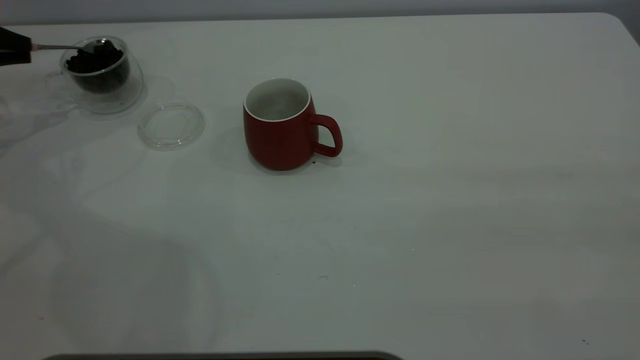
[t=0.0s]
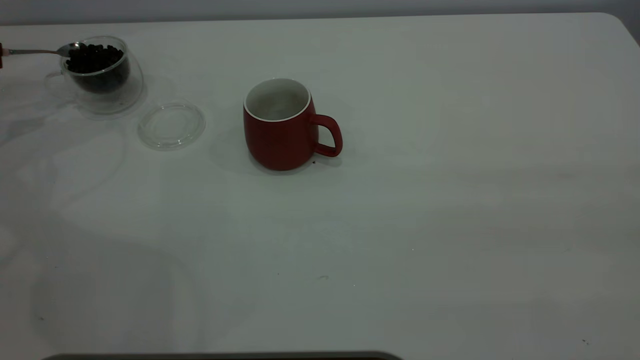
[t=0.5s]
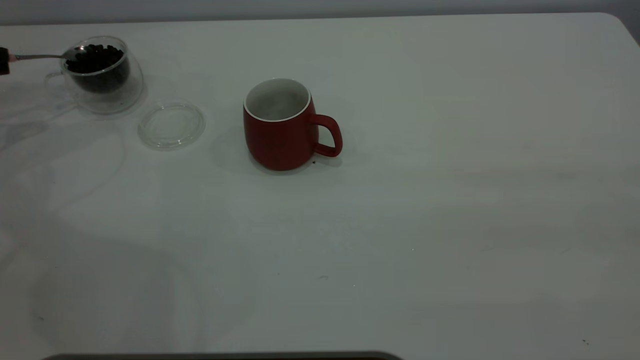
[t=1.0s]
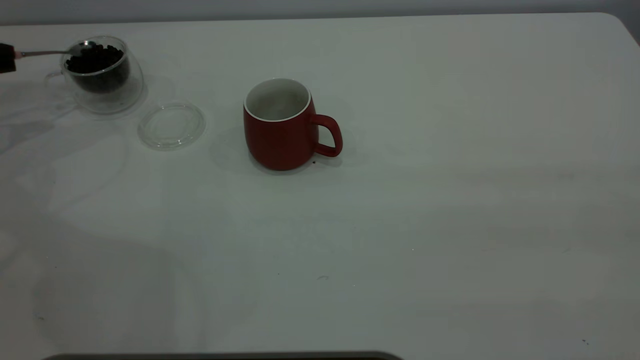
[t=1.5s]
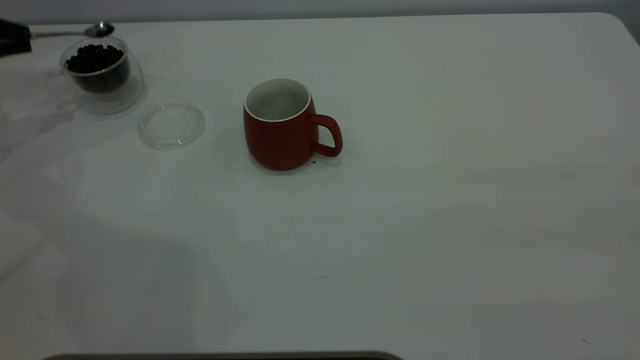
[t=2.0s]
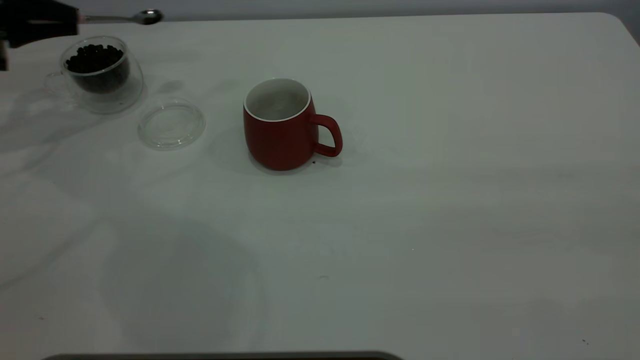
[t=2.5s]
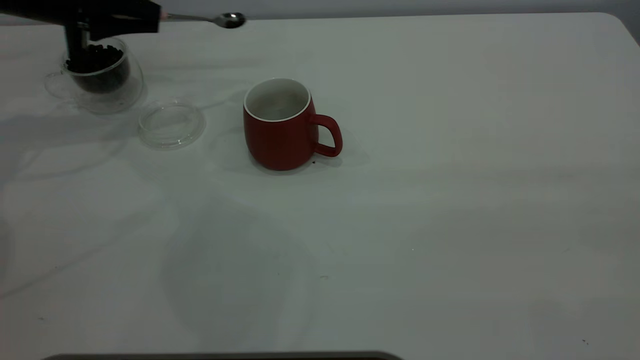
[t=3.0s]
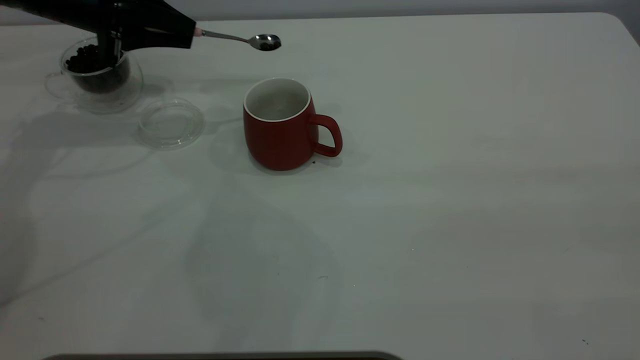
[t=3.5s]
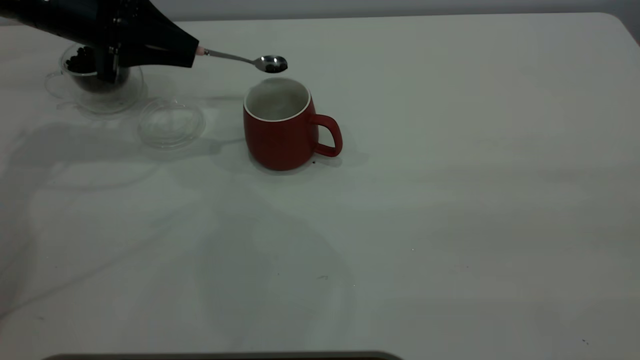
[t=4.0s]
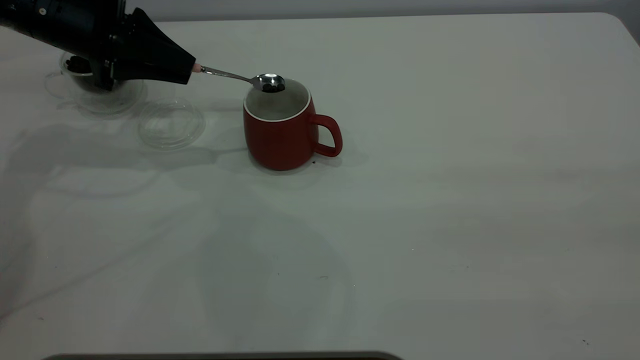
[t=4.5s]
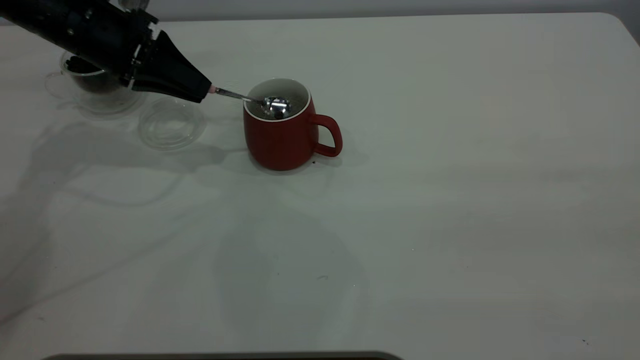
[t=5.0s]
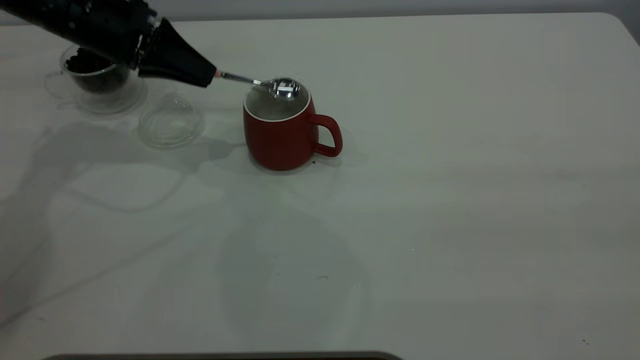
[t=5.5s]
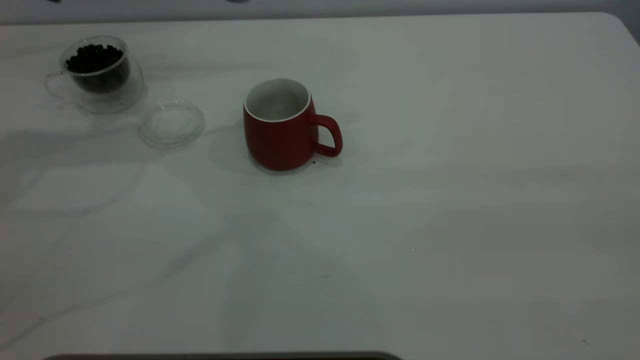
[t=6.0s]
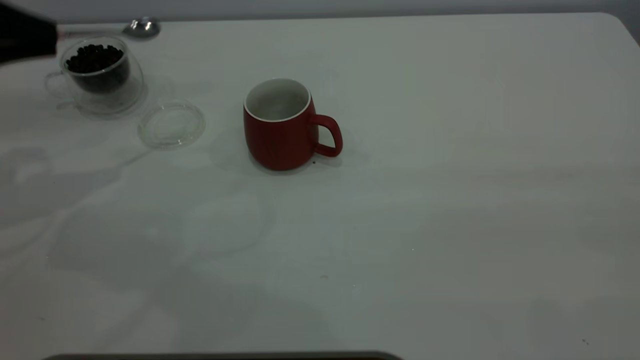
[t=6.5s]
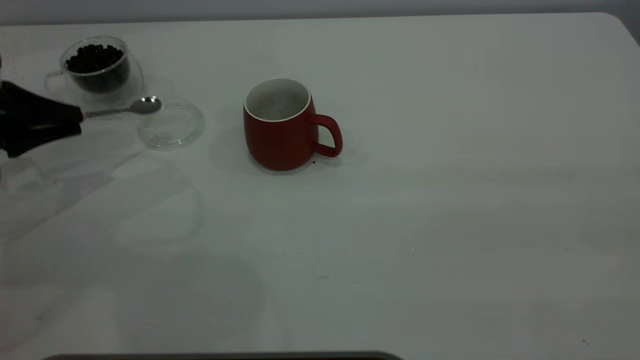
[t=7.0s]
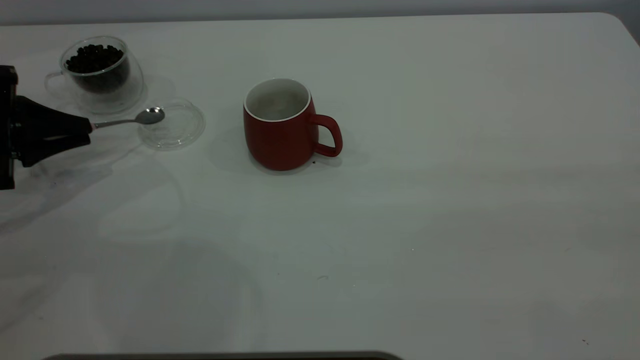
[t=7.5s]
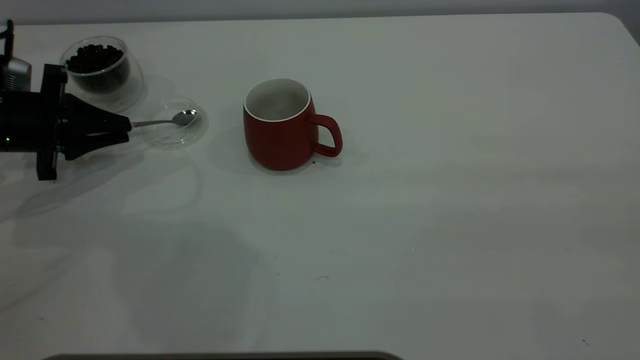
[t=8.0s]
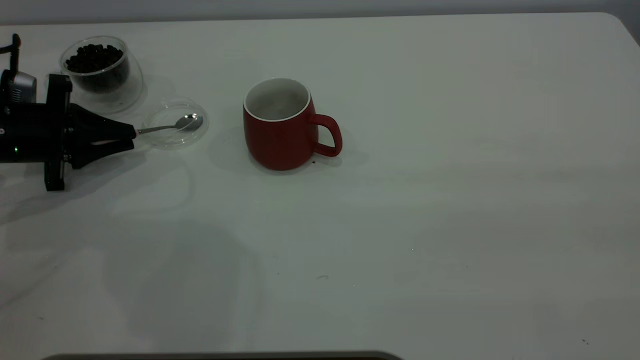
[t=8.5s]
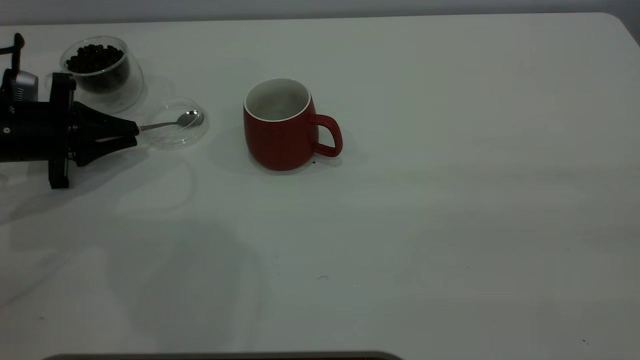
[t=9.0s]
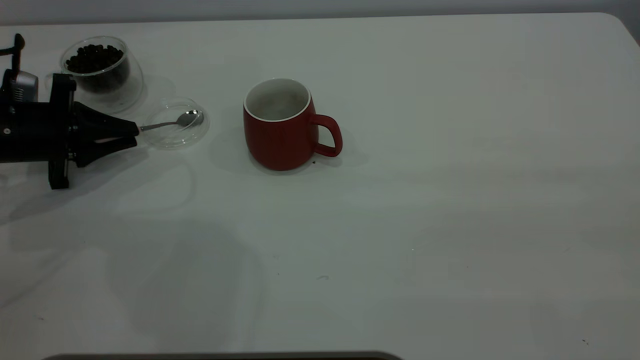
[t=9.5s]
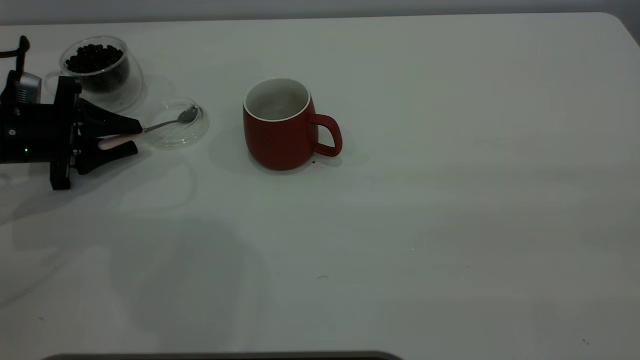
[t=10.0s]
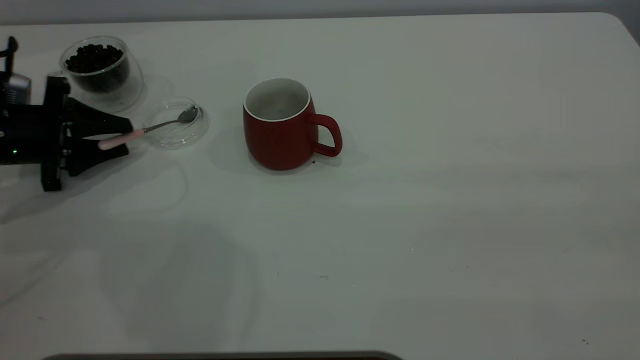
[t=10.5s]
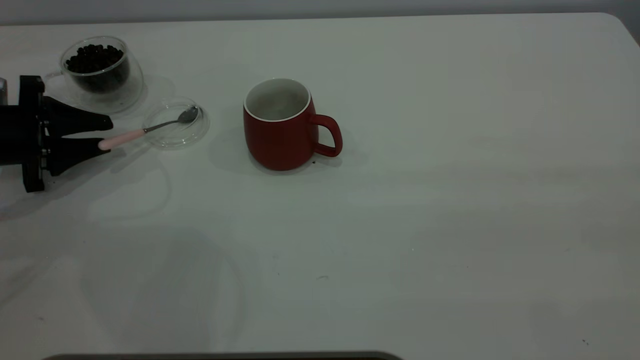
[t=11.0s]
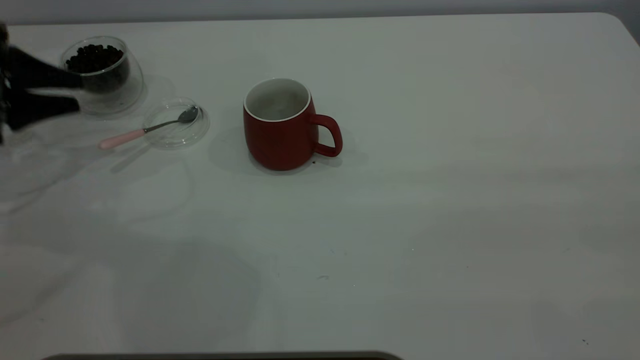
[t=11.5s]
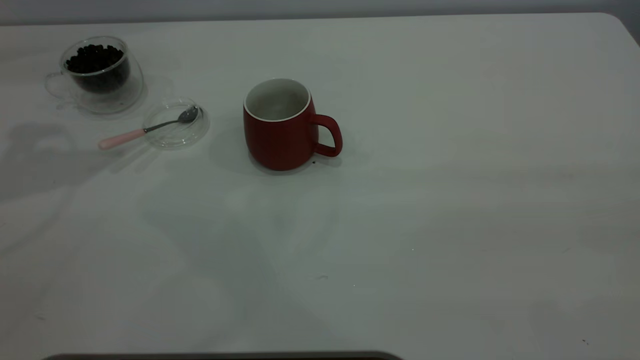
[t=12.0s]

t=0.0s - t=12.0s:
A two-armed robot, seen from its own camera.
Task of the whole recording: the right gripper place the red cup in the center of the table, the left gripper take the pink spoon from the cup lid and scoop out the coffee beans from the coffee cup and put them into the red cup, the left gripper put the spoon back into the cup lid.
Step, t=0.0s - t=5.5s: Scoop a spoonful of beans into the cup.
Step, t=6.0s - t=11.5s: Place the spoon back in its original place.
t=2.0s - t=4.0s: The left gripper is displaced to the right by roughly 20 cm.
t=4.0s - t=6.0s: The left gripper moves upward, some 10 cm.
t=6.0s - t=8.0s: The left gripper travels downward by some 20 cm.
t=8.0s - t=10.0s: The left gripper opens.
t=10.0s - t=12.0s: The left gripper shifts approximately 30 cm upward.

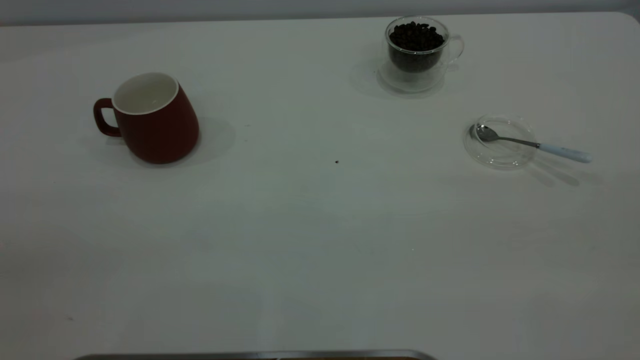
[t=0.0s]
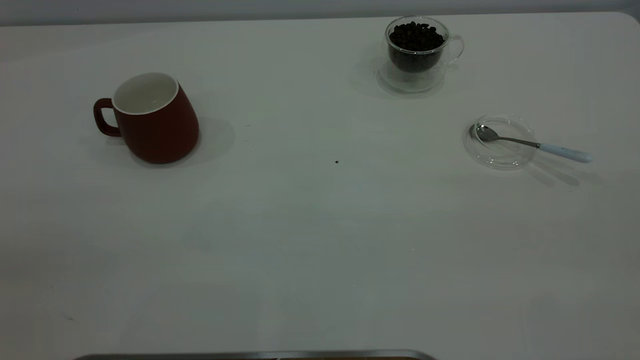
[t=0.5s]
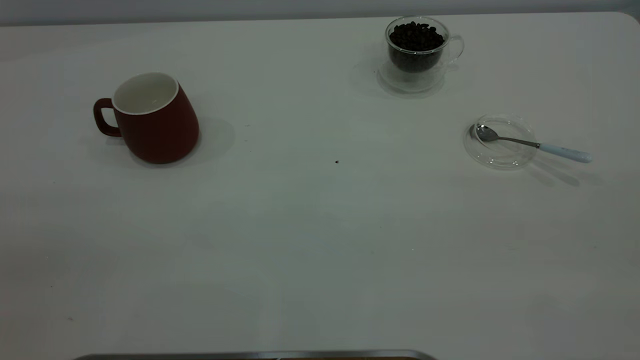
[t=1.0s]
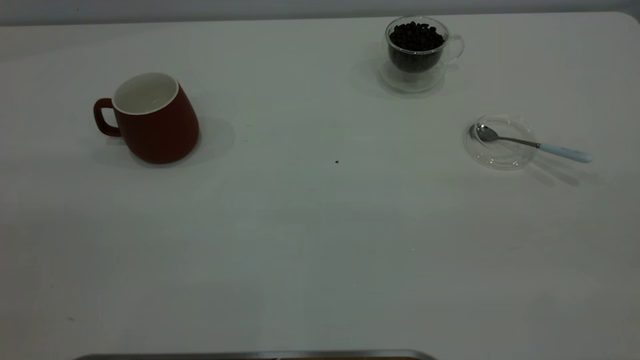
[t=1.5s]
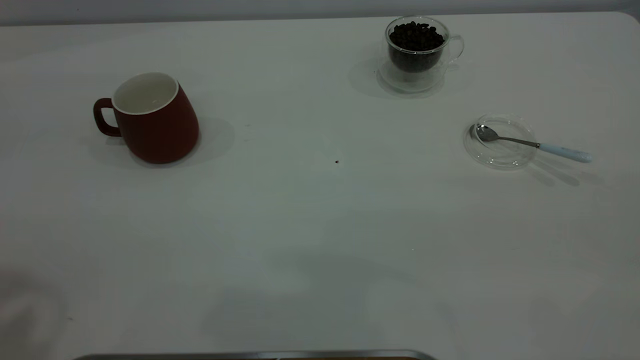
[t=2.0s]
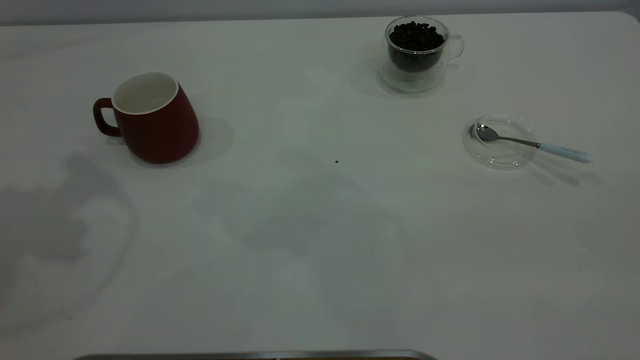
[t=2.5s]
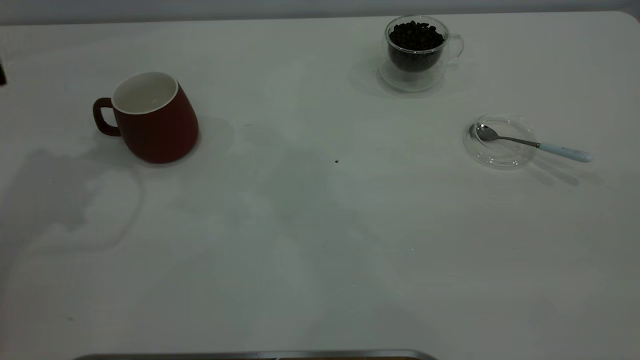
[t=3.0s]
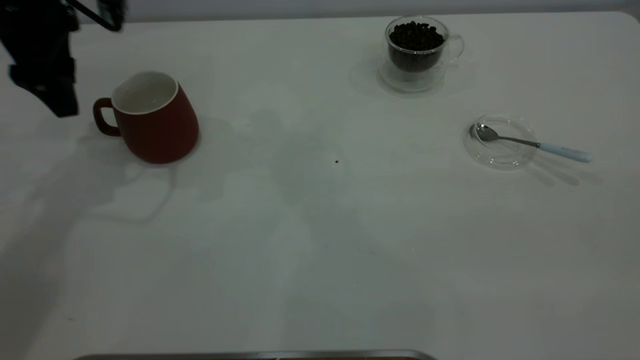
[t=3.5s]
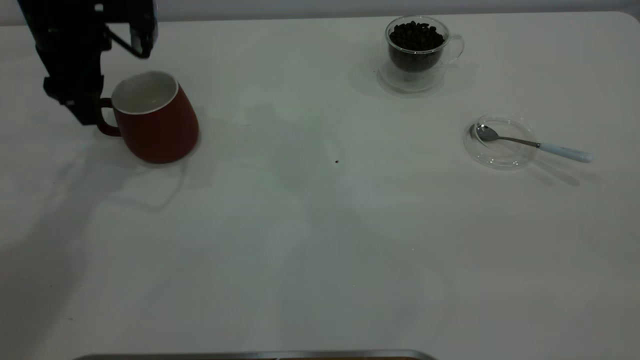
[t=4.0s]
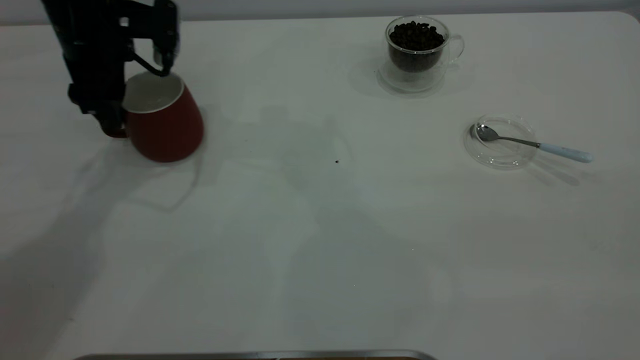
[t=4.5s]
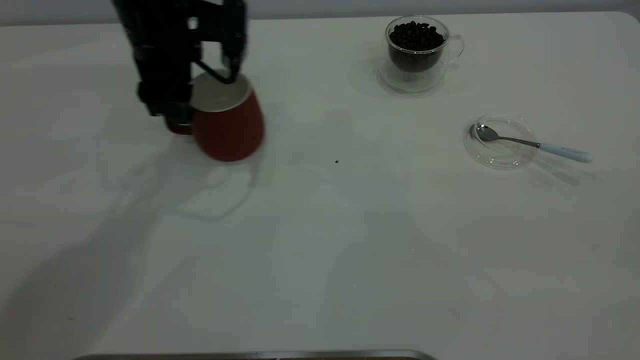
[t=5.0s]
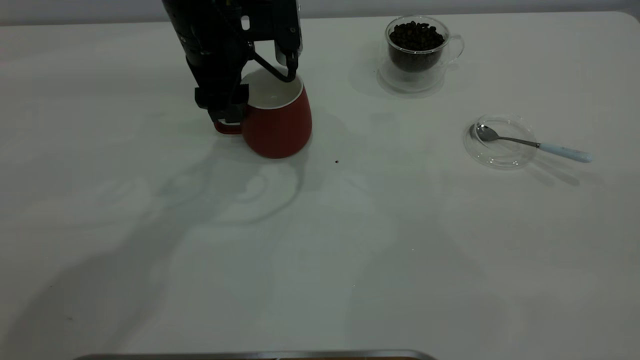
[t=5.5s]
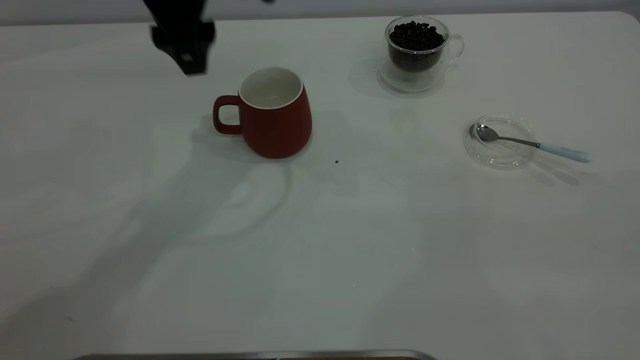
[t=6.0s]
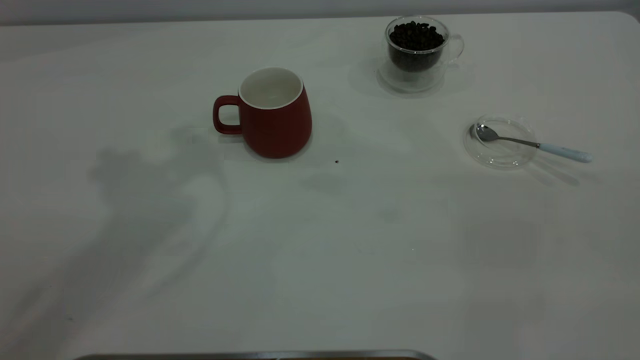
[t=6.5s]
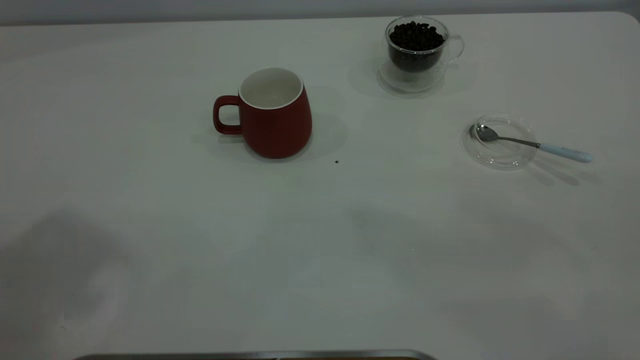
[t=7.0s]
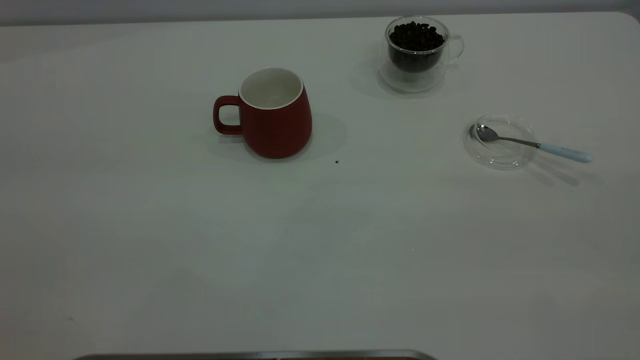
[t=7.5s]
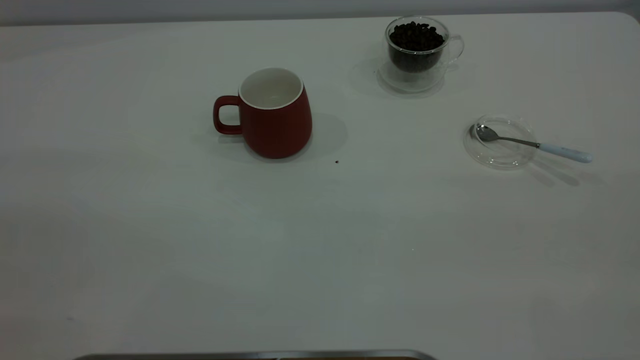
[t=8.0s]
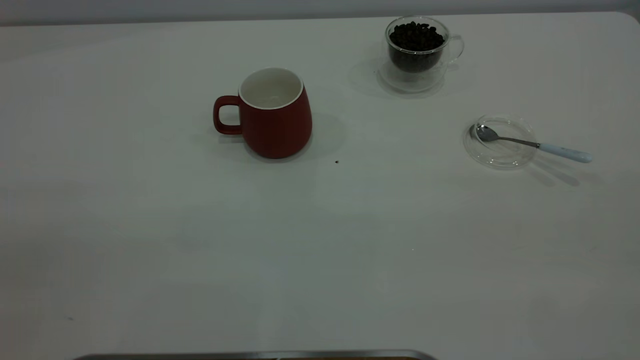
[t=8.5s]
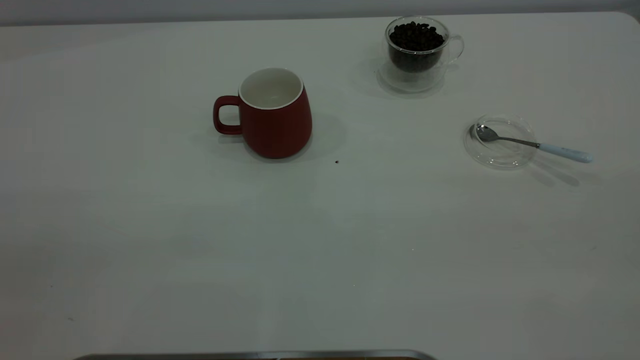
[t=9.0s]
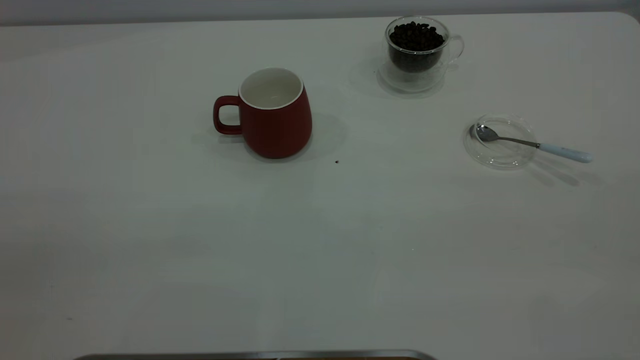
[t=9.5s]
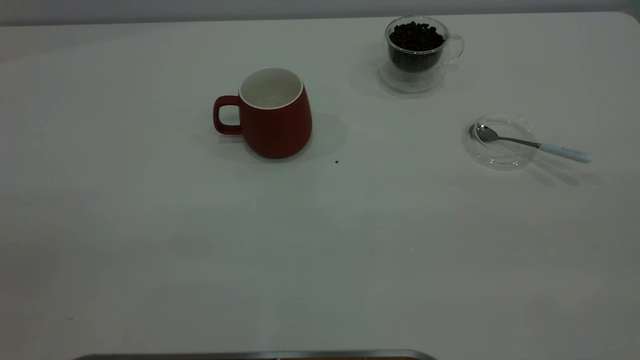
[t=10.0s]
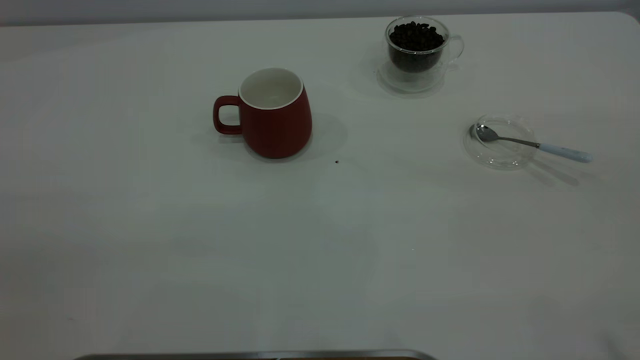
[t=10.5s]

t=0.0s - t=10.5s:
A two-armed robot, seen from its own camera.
Task of the whole recording: the left gripper place the red cup in the center of the table, the right gripper take the blue spoon from the cup lid and scoop out the coffee beans from the coffee cup and put them into the red cup, the right gripper put the spoon back into the cup lid.
Step, t=0.0s - t=5.5s: Move the cup to the center of view.
t=2.0s - t=4.0s: The left gripper moves forward and downward, about 35 cm.
t=4.0s - t=6.5s: The left gripper is displaced upward and backward by about 25 cm.
